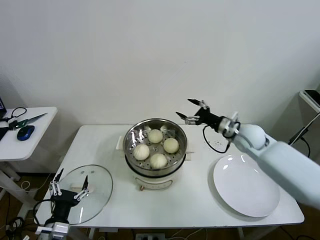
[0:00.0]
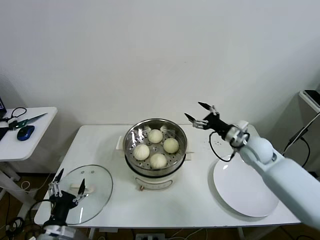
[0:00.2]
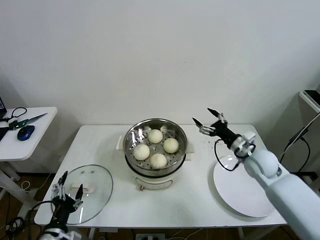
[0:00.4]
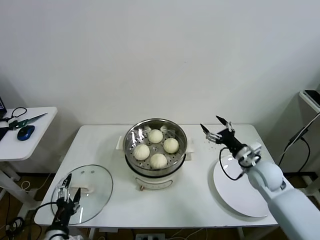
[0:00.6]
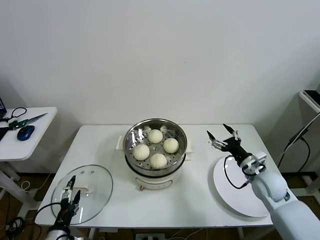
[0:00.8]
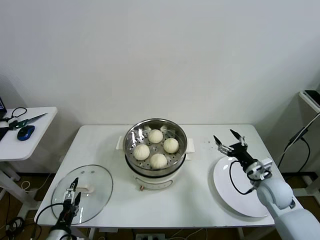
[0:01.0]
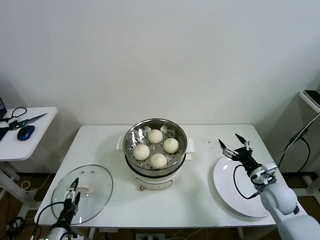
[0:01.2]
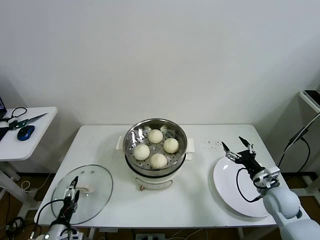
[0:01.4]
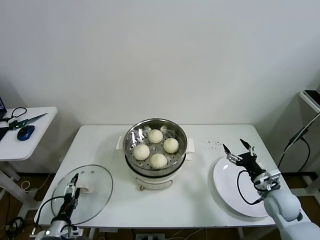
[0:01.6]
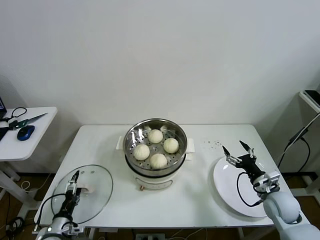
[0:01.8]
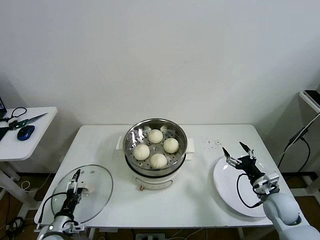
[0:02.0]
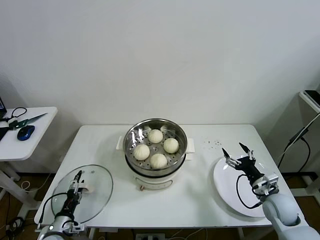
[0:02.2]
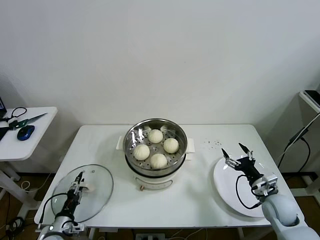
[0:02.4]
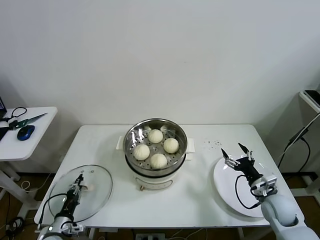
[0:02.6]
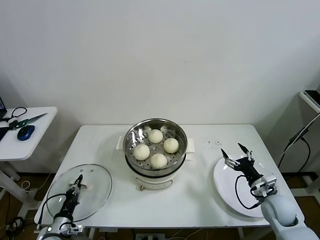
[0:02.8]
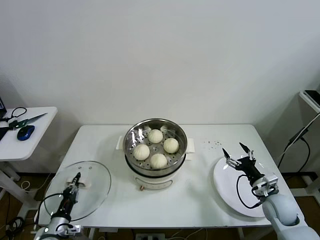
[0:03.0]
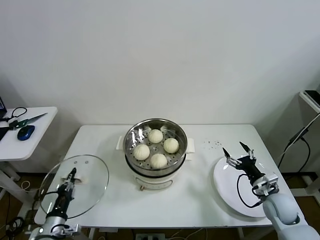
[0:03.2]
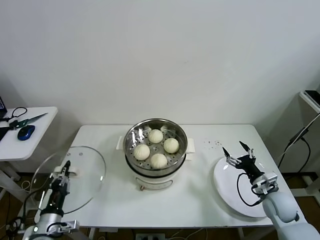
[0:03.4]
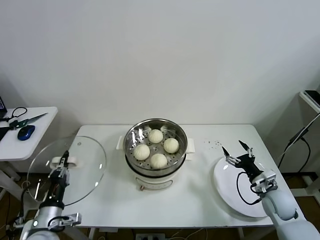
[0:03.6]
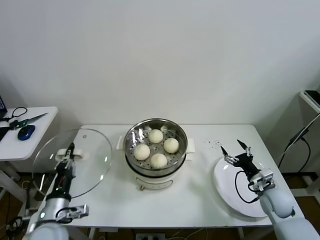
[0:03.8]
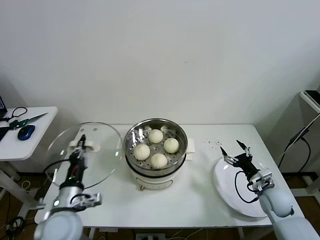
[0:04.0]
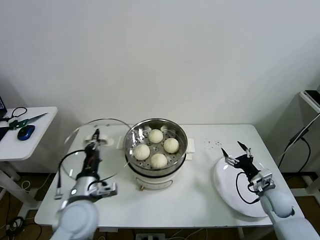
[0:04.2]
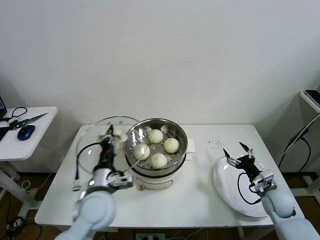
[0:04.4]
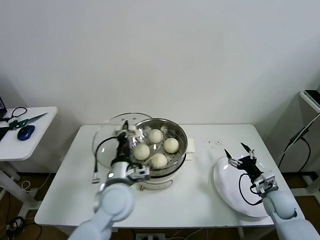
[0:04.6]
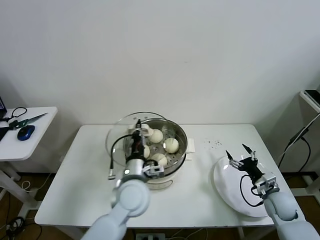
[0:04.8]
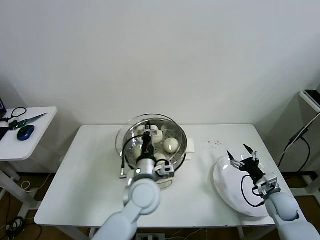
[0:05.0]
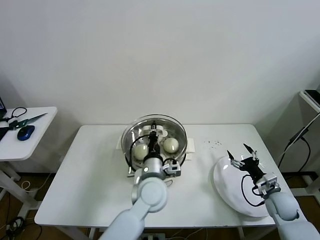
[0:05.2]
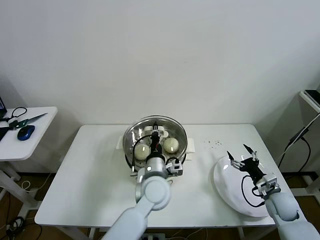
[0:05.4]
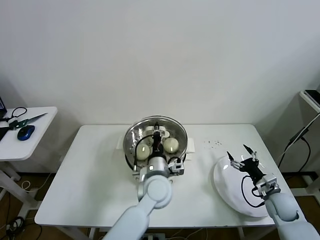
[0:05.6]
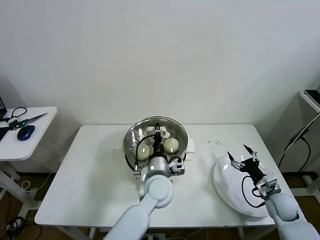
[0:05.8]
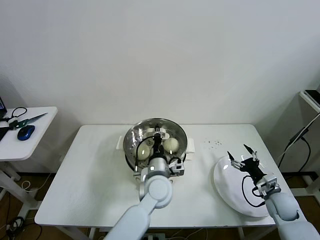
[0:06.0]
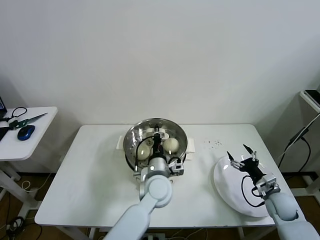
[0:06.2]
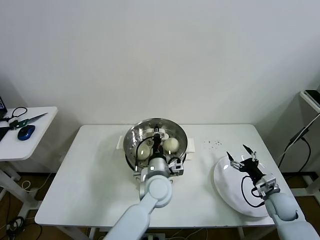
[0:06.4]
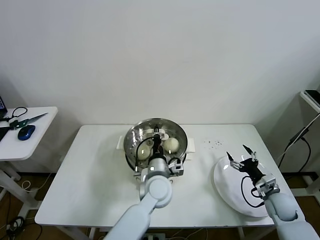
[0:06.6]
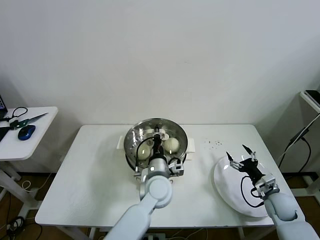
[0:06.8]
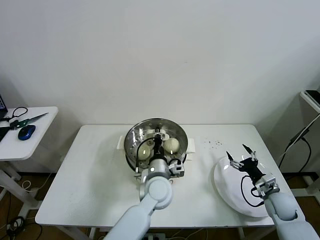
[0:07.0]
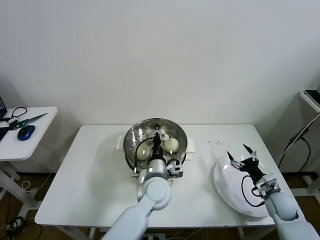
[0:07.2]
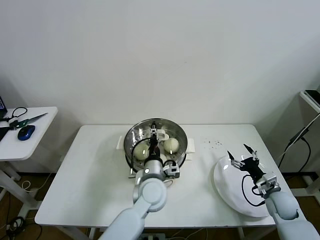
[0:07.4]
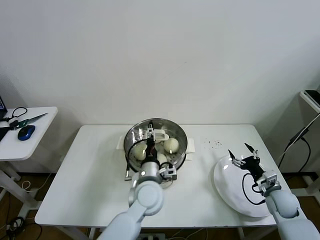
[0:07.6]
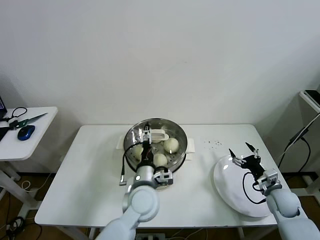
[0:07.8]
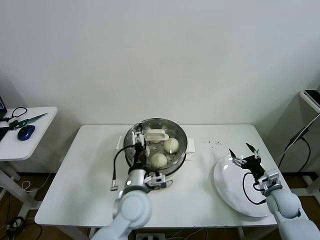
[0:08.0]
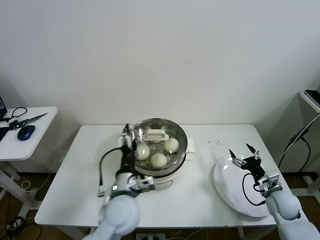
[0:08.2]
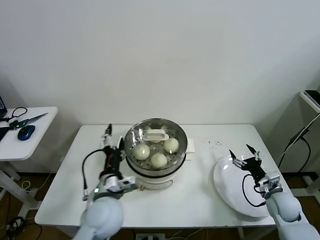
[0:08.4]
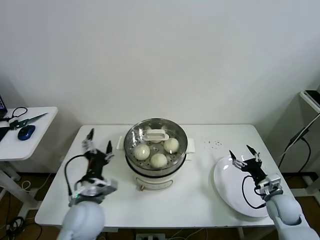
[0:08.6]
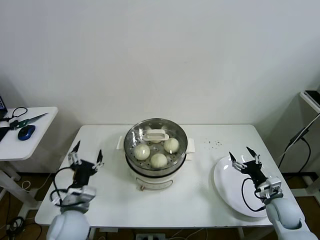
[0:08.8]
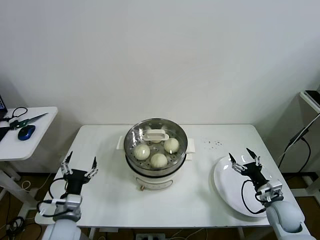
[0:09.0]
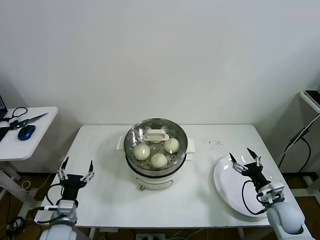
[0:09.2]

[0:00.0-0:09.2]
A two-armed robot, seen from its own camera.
Task of the whole recording: take steamed baozi put them in steamer then cover it.
Step, 0:00.0 to 0:02.8: Grasp the pot lid with left gripper.
Step, 0:03.0 to 0:07.0: Place the pot lid on the steamer with left gripper.
0:00.0 to 0:01.6: The right gripper moves backward, downward and to the right, approximately 25 cm; the left gripper heads downward and to the left, covering some 10 cm.
0:01.6 to 0:03.0: The left gripper closes.
0:03.0 to 0:04.6: The left gripper goes about 30 cm to the right and upward.
0:04.6 to 0:06.2: The left gripper goes roughly 15 cm to the right, forward and downward.
0:06.2 to 0:07.6: The left gripper opens its fingers.
0:07.6 to 0:09.2: The left gripper is displaced to the left and backward by about 30 cm.
